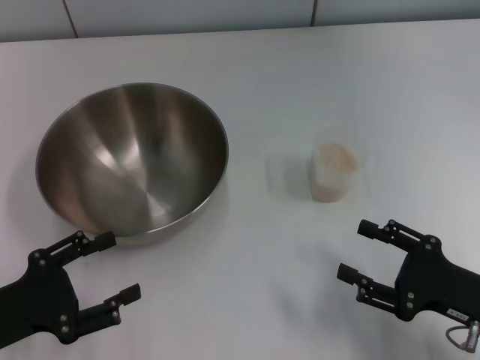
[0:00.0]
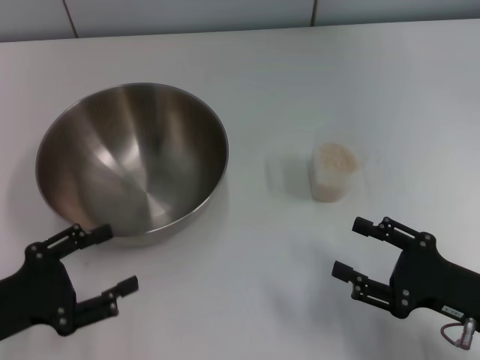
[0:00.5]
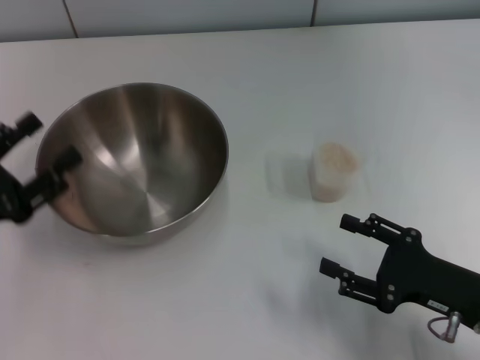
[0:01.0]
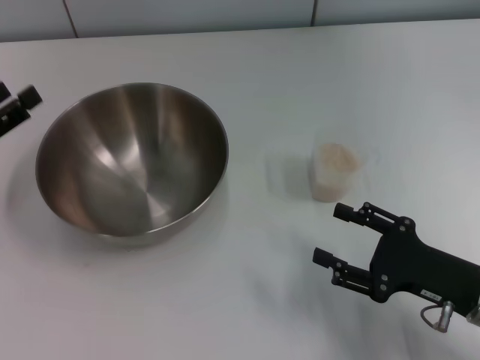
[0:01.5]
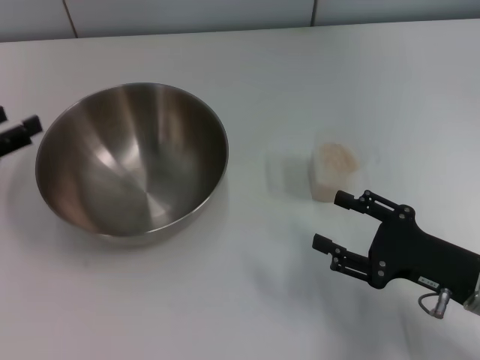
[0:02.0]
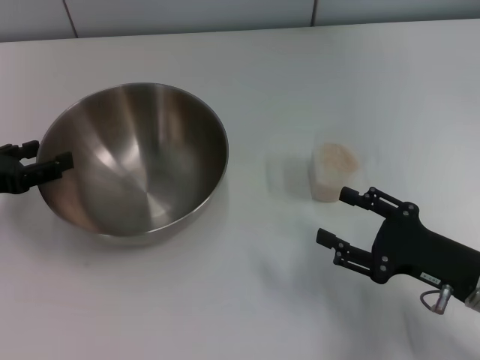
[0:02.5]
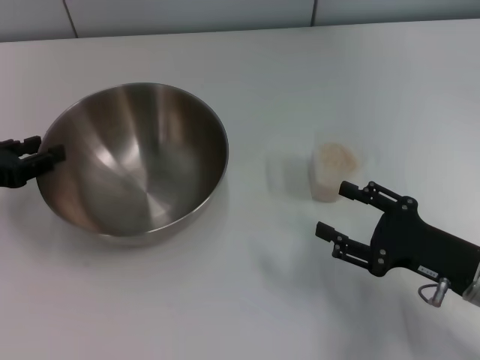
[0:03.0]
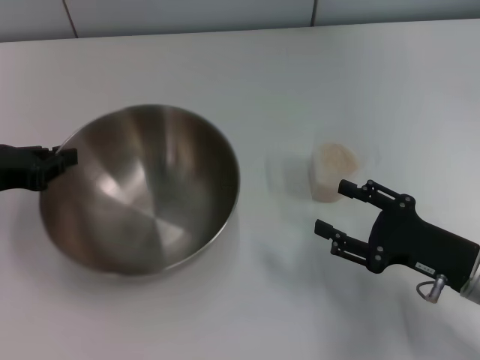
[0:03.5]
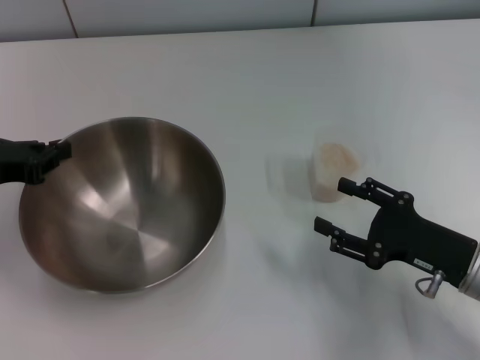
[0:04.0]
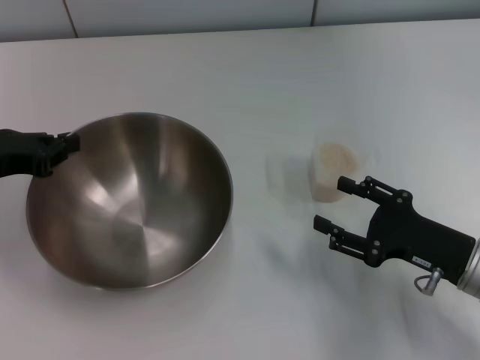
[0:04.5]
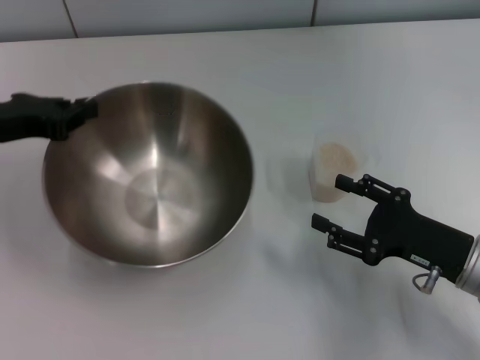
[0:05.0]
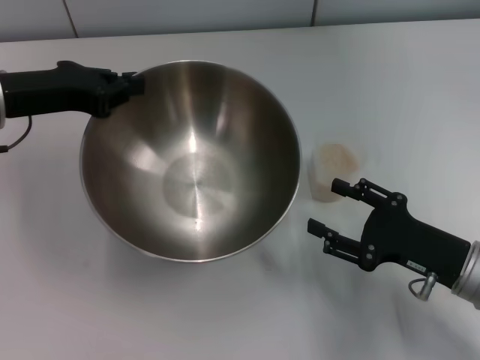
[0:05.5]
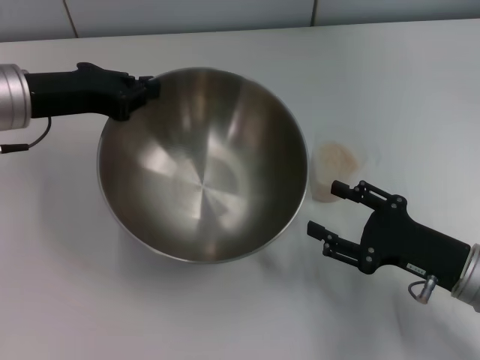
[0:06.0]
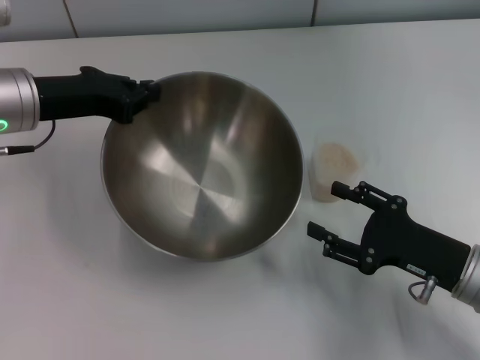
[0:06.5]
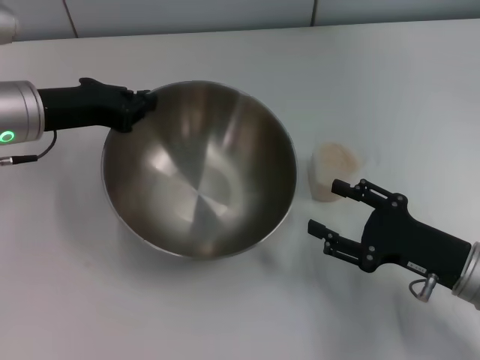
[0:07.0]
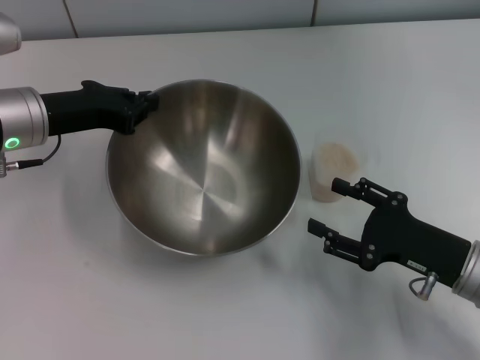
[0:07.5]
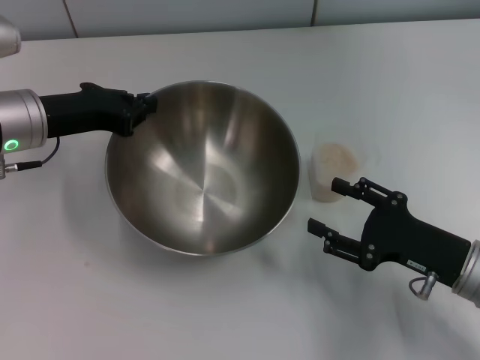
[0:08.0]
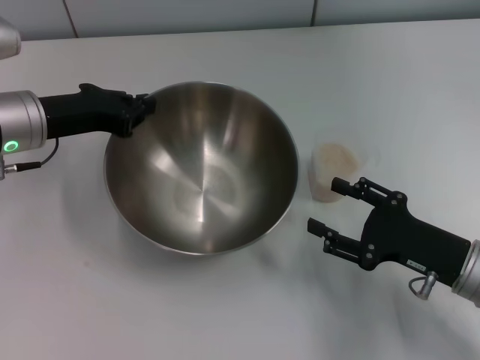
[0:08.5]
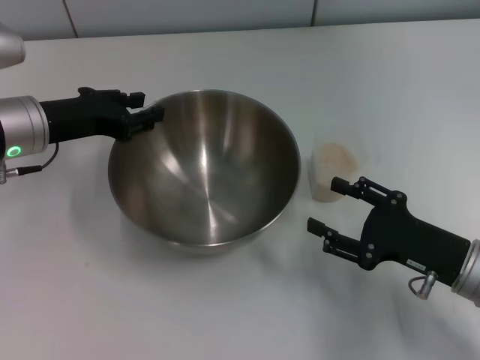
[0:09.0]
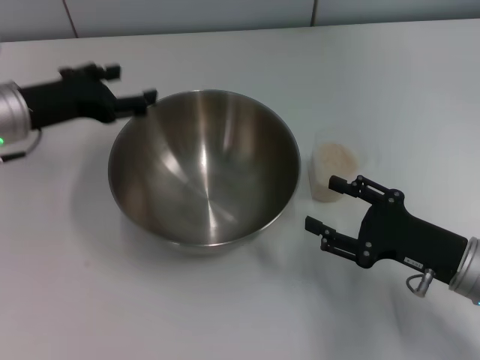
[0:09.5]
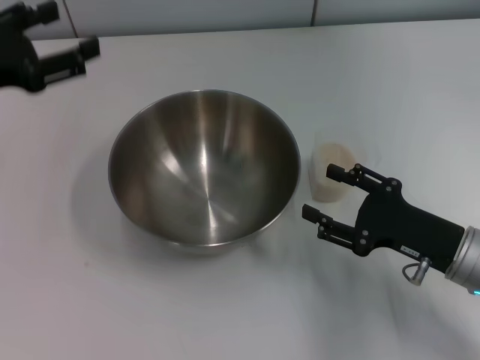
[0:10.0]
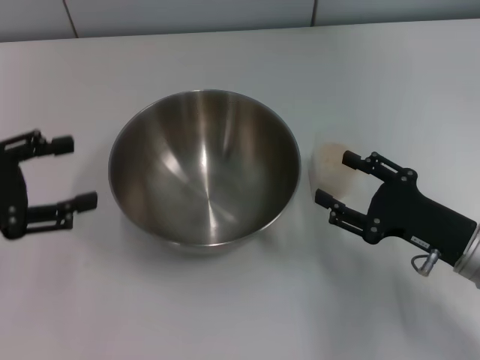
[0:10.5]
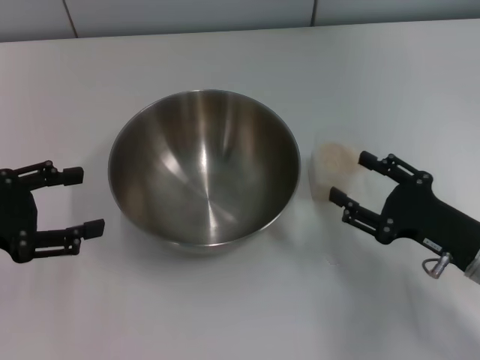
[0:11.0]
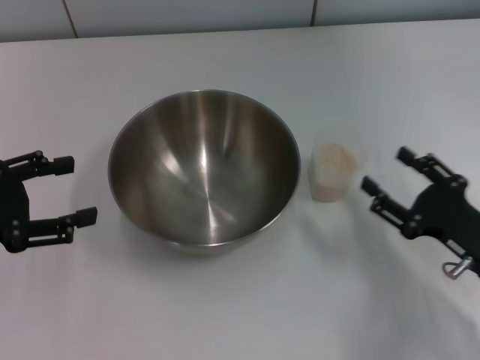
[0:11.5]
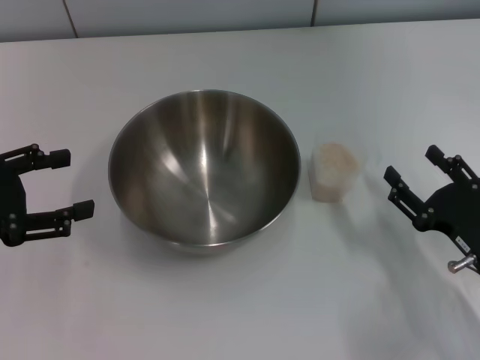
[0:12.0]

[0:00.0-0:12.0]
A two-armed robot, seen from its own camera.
Task of the whole recording: Place the bowl in the middle of the table with one hand and pour the rice from the grain cup into it with the other hand.
Step, 0:00.0 to 0:05.0: Pick up the bowl with the left gripper.
Step, 0:05.5 to 0:09.5: Place the bowl in the center of view with the left gripper.
0:00.0 to 0:02.0: The left gripper shifts about 15 cm forward, upward and to the left.
0:02.0 to 0:04.0: The left gripper closes its fingers.
0:04.0 to 0:06.0: The left gripper shifts approximately 10 cm to the right, forward and upward.
0:06.0 to 0:08.0: The grippers stay close to where they were, moving slightly.
0:08.0 to 0:10.0: The left gripper goes about 10 cm to the left and upward, and opens up.
0:10.0 to 0:12.0: The left gripper is displaced backward by some 5 cm.

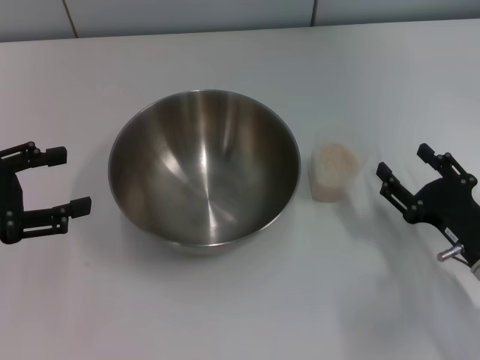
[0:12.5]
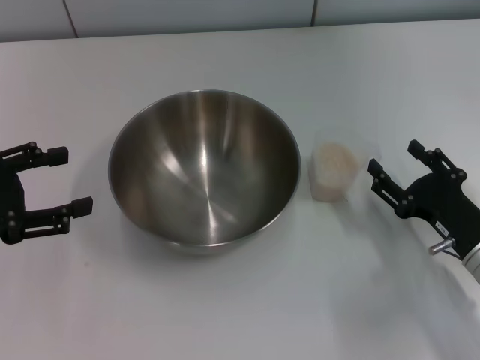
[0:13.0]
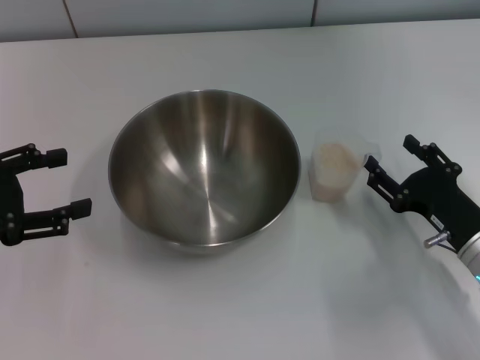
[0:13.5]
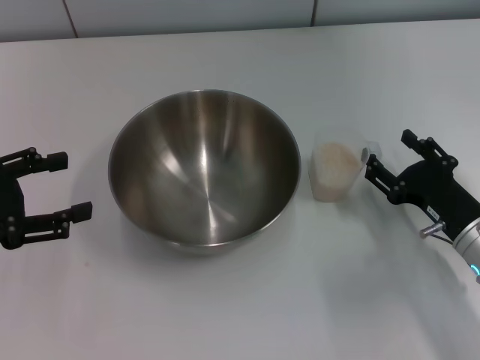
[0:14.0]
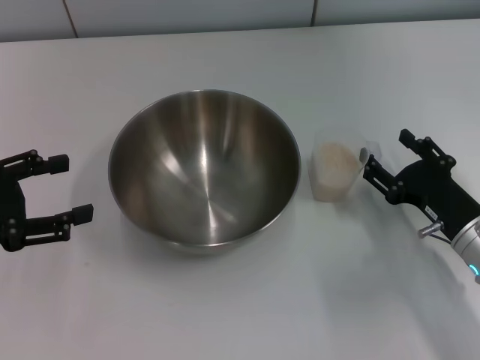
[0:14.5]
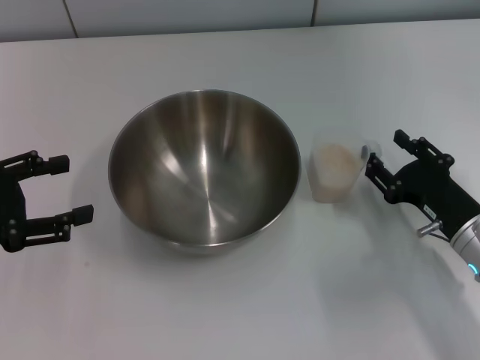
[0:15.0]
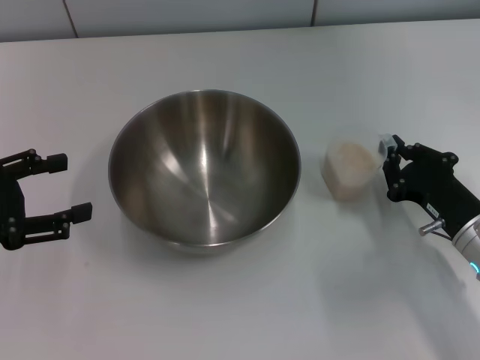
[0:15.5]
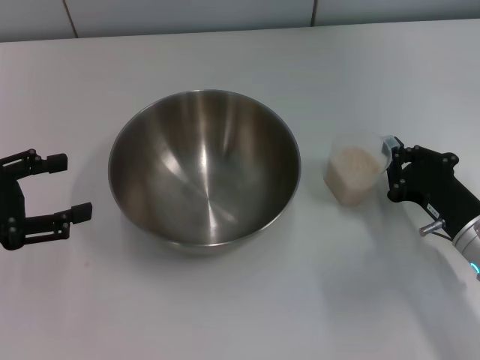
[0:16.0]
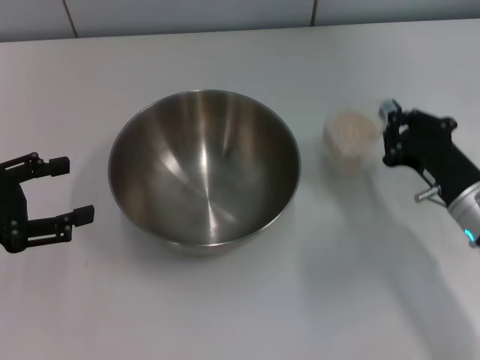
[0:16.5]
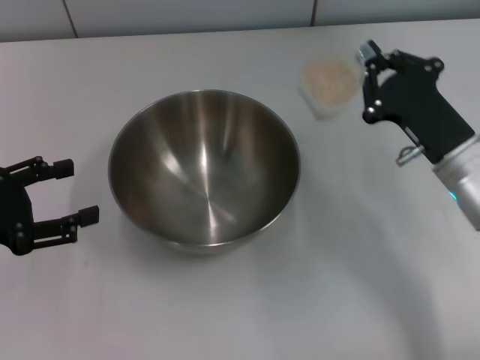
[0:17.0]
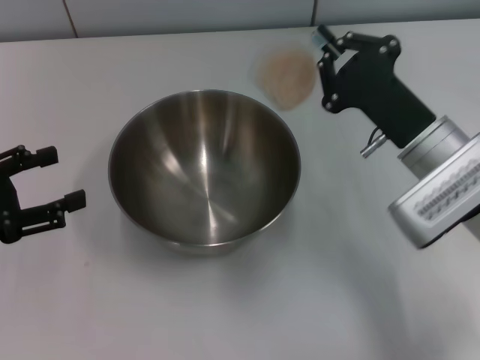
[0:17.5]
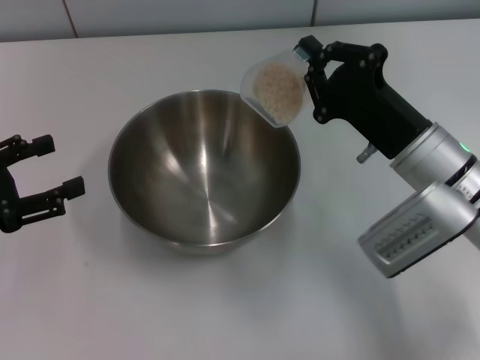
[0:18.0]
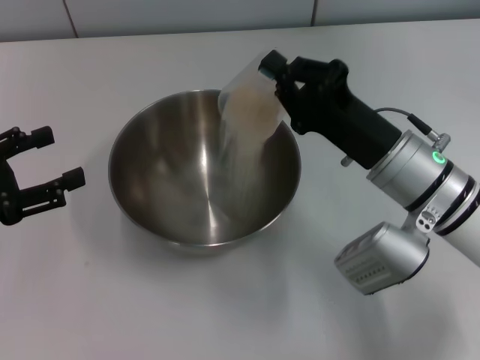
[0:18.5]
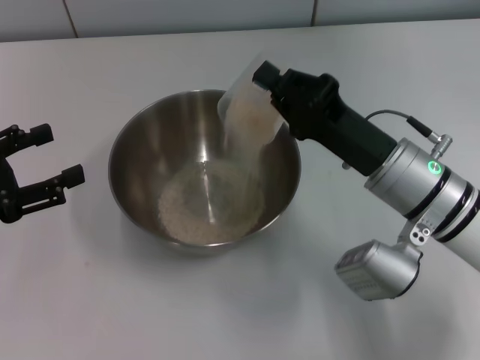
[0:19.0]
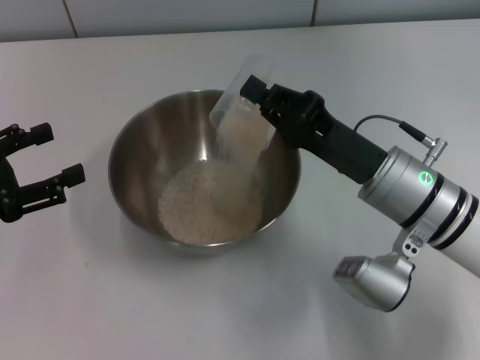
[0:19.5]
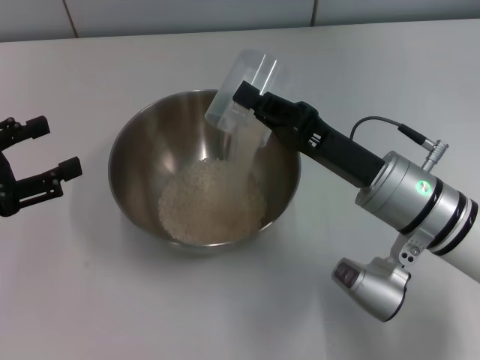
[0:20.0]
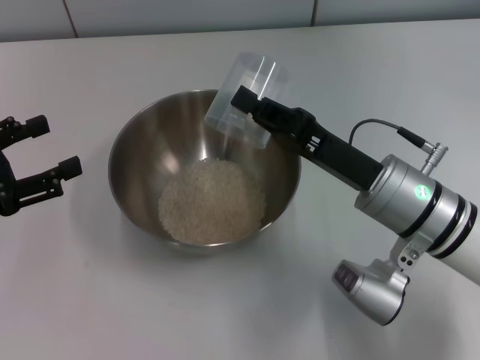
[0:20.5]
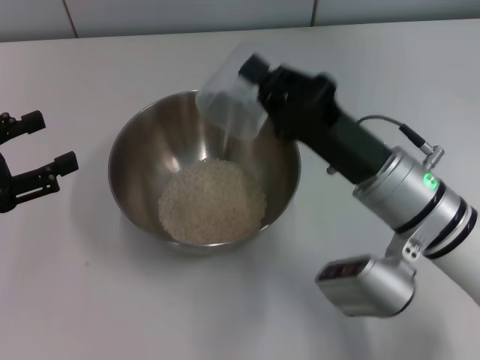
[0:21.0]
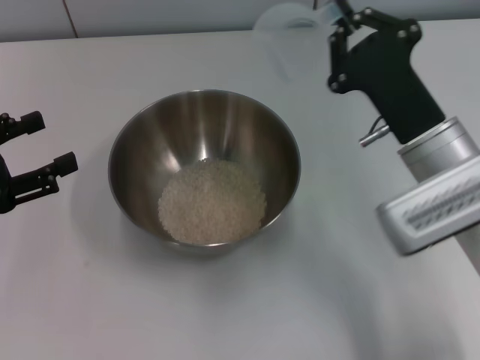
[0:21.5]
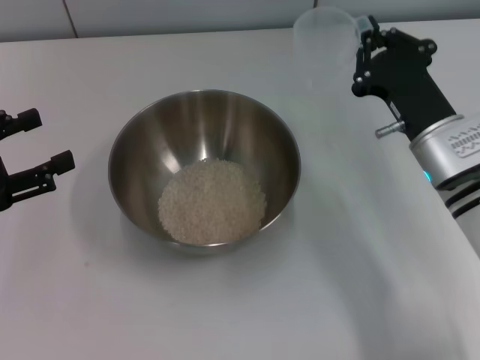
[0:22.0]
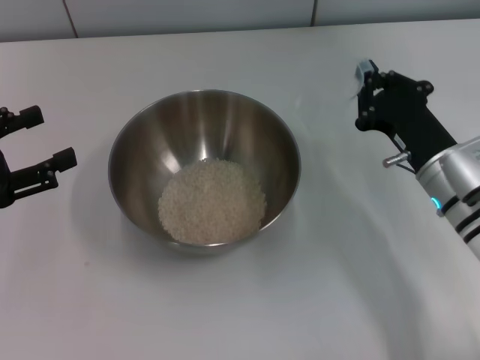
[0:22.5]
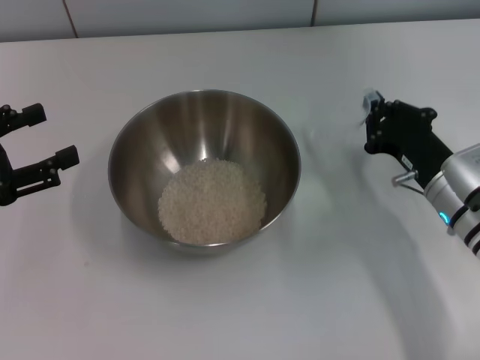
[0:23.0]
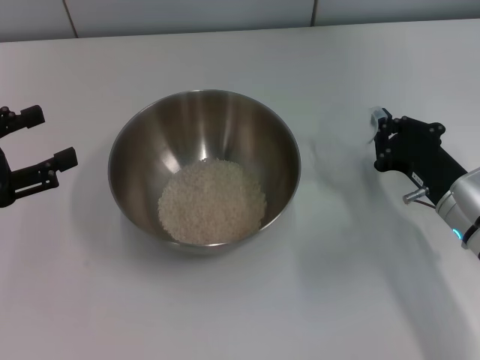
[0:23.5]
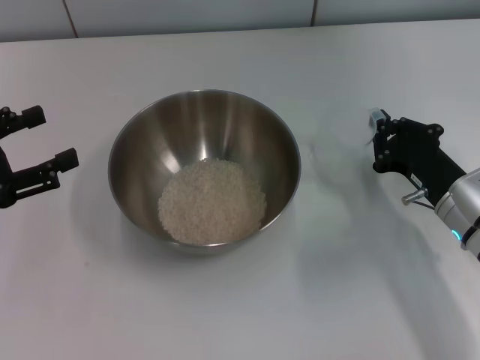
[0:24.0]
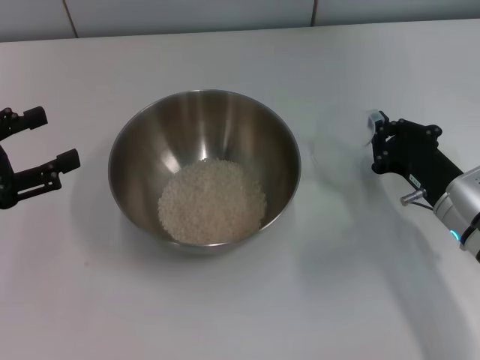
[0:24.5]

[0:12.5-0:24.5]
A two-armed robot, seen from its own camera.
Task of the whole recording: Place the bowl in the middle of the table with one hand and pour the rice from the grain cup into it with the other hand.
Step, 0:12.5 to 0:16.5: Pick up the cup with rice in it with the right gripper.
Step, 0:17.0 to 0:21.0: Pour the rice from the cup into the bowl with the right gripper.
0:12.5 to 0:14.5: There are only small adjustments of the grippers.
0:14.5 to 0:16.5: The right gripper closes its fingers.
0:16.5 to 0:18.5: The right gripper moves to the left and upward, about 10 cm.
0:20.5 to 0:22.5: The right gripper moves to the right, roughly 5 cm.
0:22.5 to 0:24.5: The grippers make only small movements.

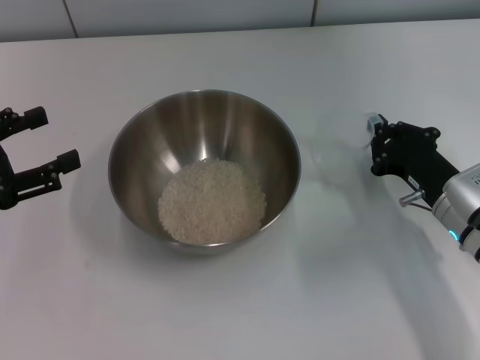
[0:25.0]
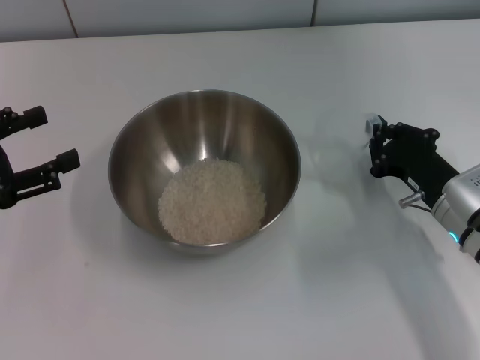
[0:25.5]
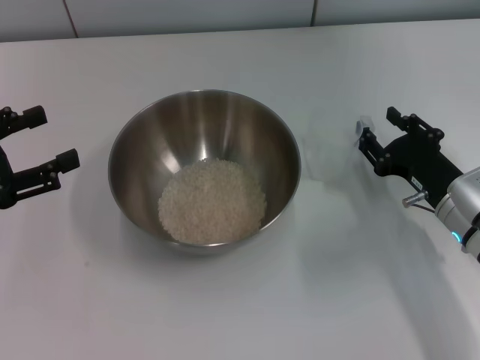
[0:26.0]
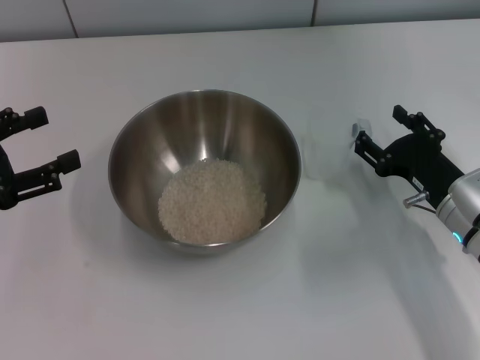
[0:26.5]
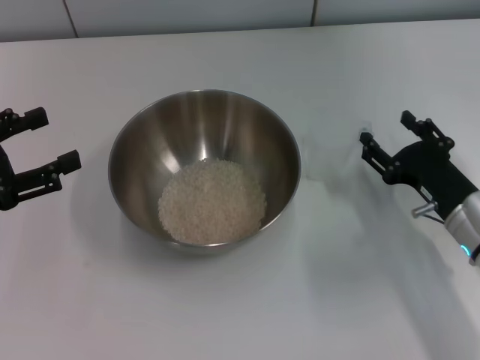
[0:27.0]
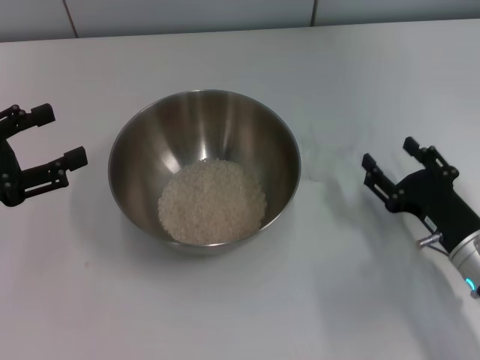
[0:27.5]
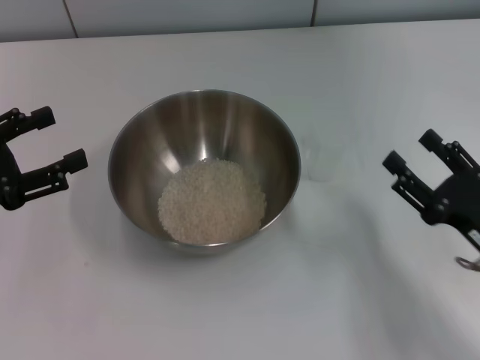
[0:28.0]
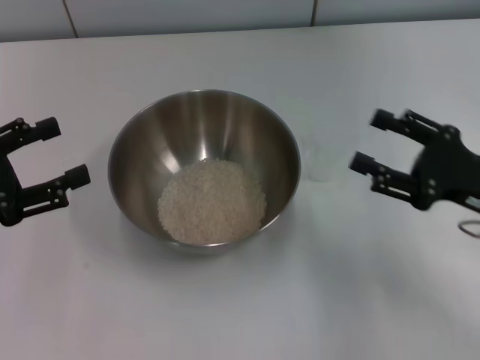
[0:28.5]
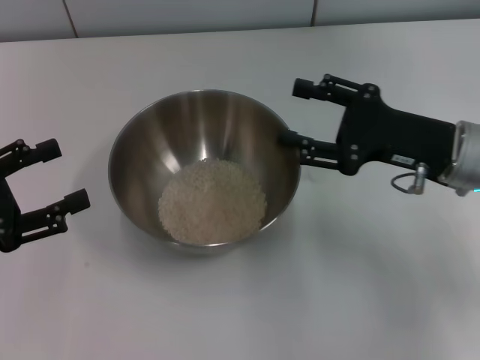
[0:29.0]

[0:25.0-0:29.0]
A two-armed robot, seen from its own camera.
Task of the whole recording: Place the bowl in the middle of the table with one hand and pour the rice from the grain cup into it with the other hand.
Step, 0:25.0 to 0:27.0: Place the cup on the table with the right gripper.
0:25.0 to 0:27.0: The right gripper opens its fingers.
0:27.0 to 0:29.0: The right gripper goes approximately 10 cm upward.
